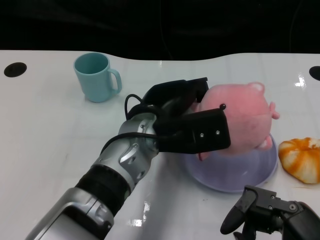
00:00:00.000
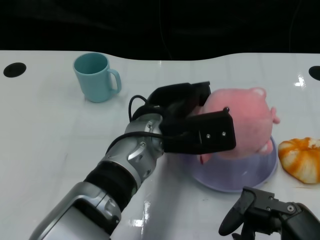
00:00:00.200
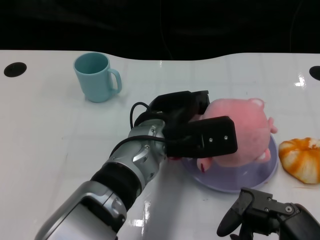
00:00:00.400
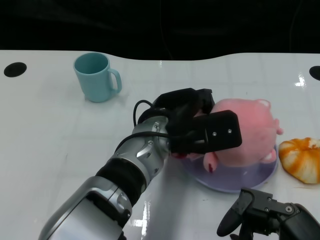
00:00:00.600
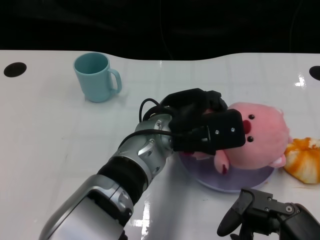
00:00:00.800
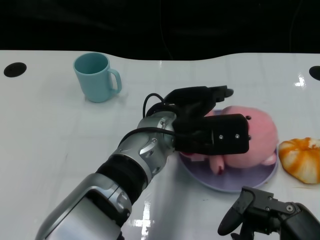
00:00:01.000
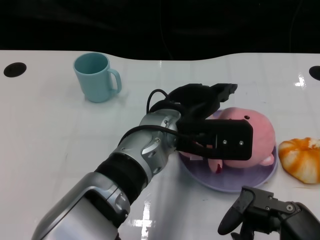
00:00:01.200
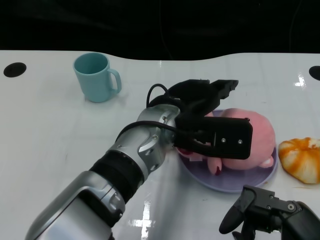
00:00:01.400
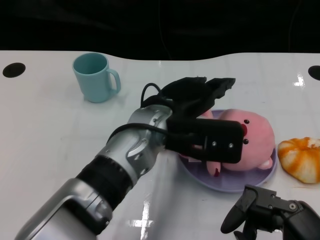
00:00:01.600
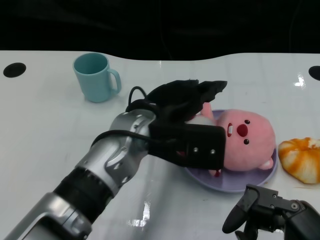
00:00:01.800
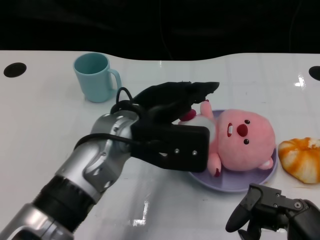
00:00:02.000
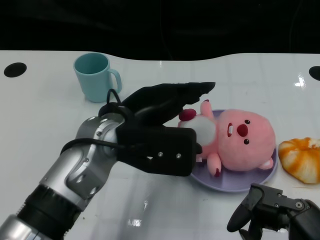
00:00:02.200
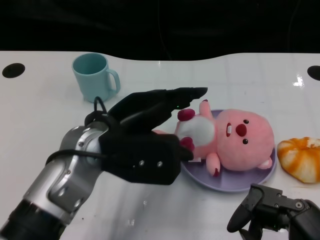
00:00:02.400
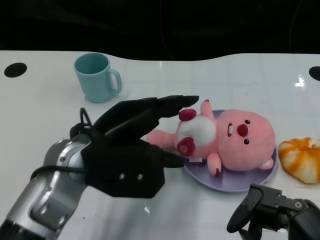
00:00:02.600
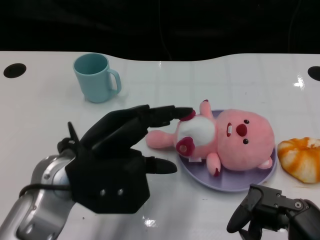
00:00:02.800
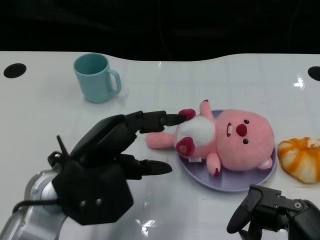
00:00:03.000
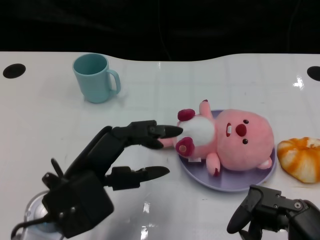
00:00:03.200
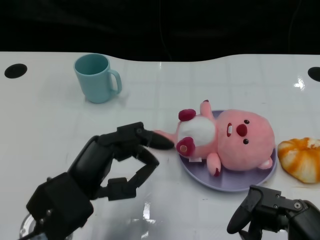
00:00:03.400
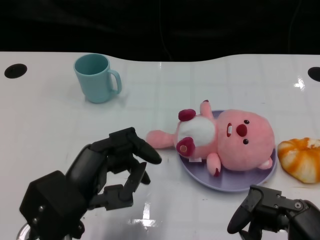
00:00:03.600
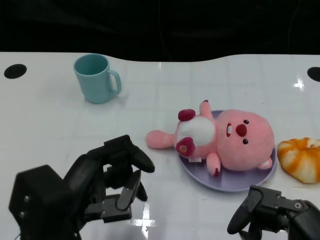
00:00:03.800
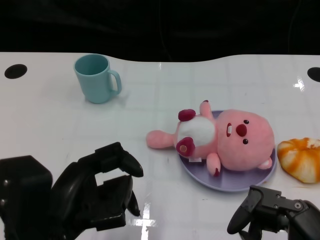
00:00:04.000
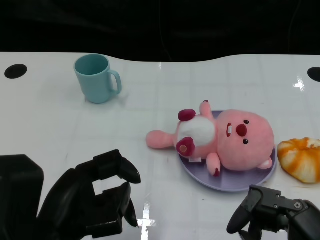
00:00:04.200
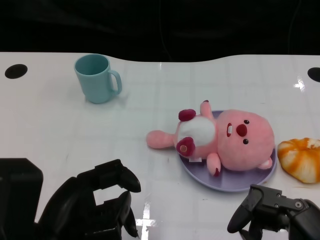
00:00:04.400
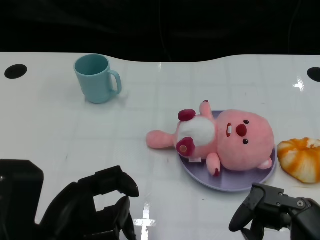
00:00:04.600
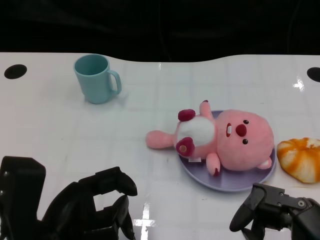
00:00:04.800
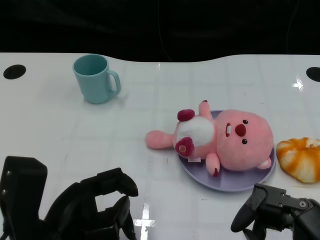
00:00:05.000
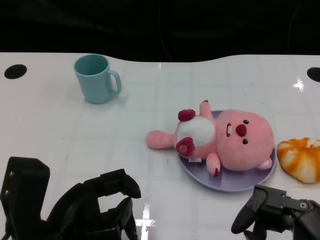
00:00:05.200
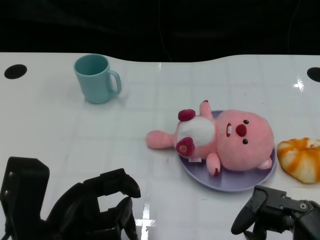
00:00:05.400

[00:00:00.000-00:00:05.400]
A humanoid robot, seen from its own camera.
Task of the whole recording: Pick up the doll on one side of the plate and place it into the plate.
00:00:01.400 to 00:00:02.800: The left hand is displaced to the left and backward by about 15 cm.
00:00:02.800 to 00:00:04.000: The left hand goes some 10 cm backward.
00:00:04.000 to 00:00:05.400: The hands make only small movements.
